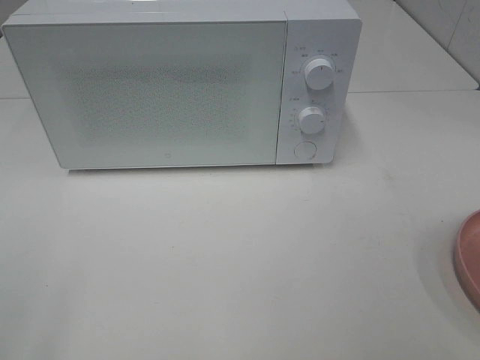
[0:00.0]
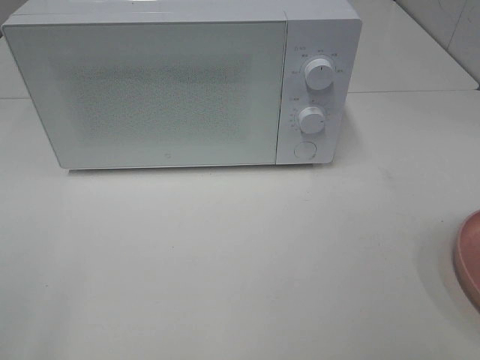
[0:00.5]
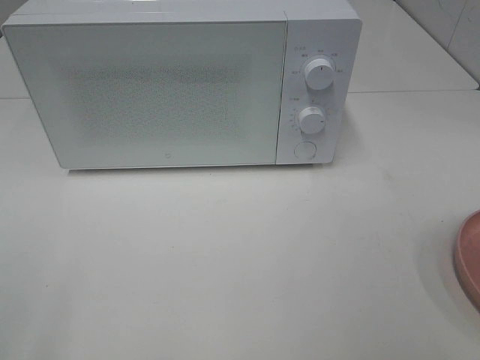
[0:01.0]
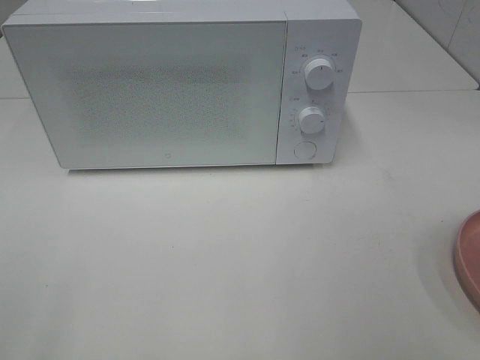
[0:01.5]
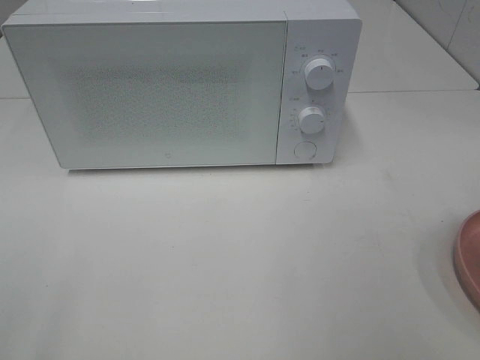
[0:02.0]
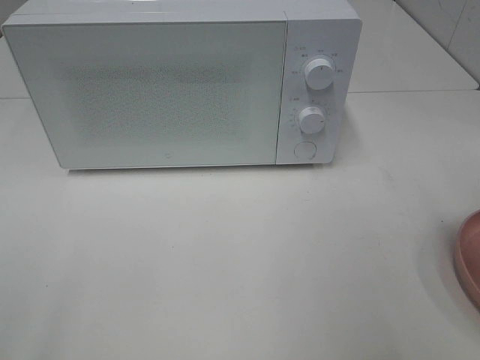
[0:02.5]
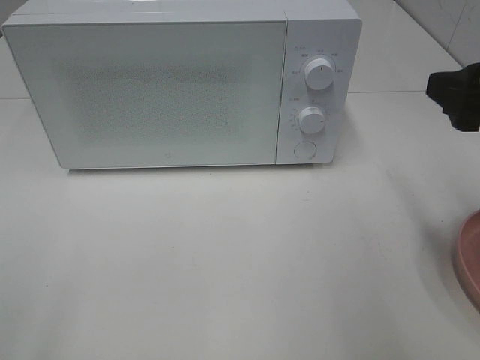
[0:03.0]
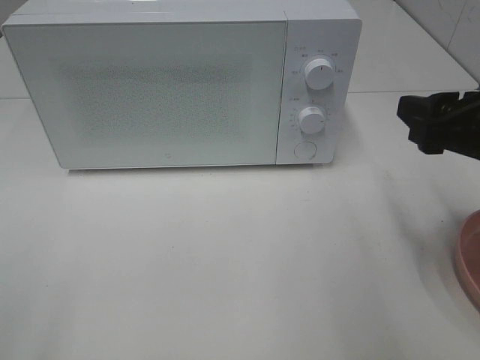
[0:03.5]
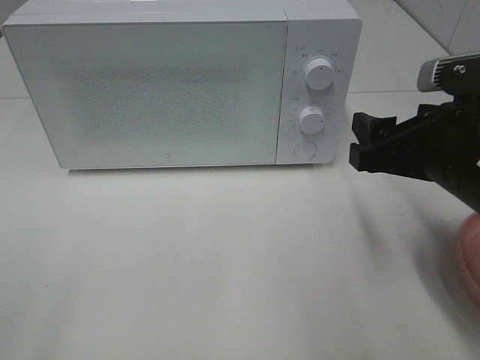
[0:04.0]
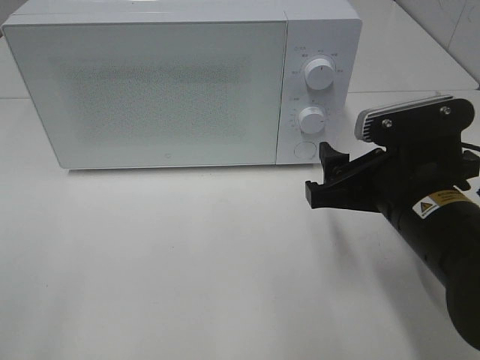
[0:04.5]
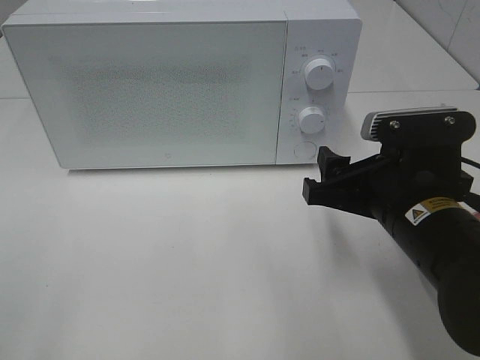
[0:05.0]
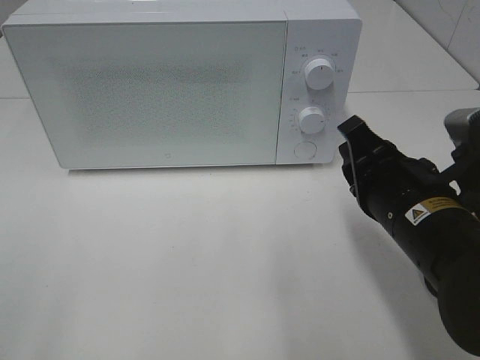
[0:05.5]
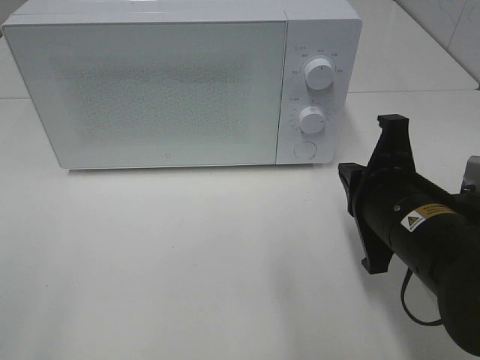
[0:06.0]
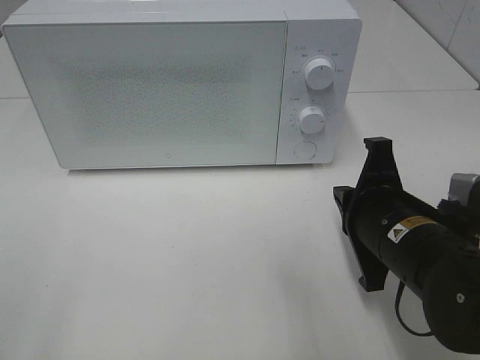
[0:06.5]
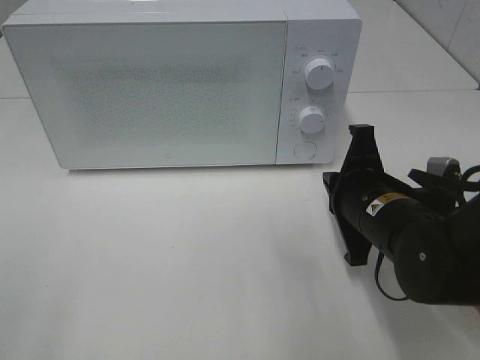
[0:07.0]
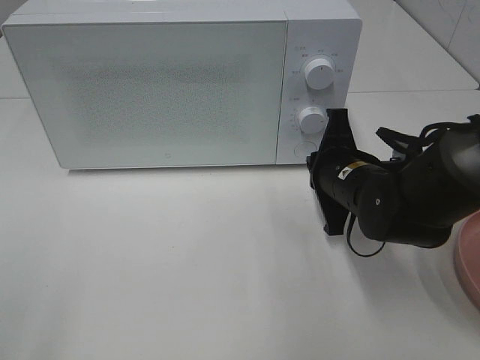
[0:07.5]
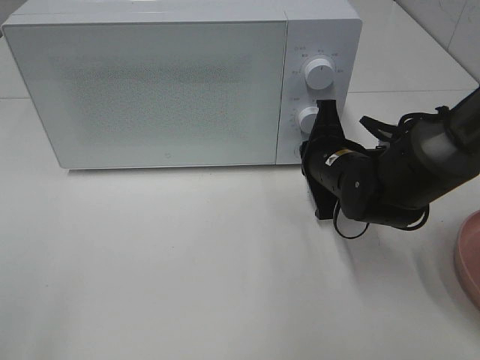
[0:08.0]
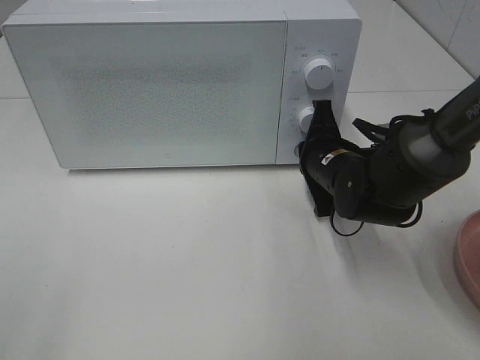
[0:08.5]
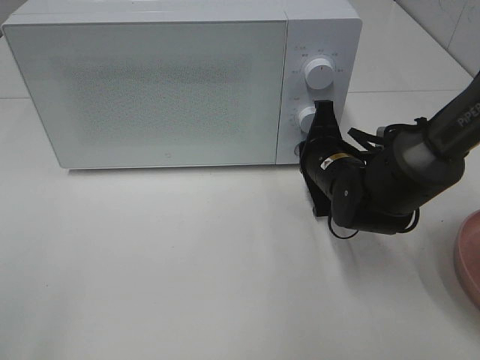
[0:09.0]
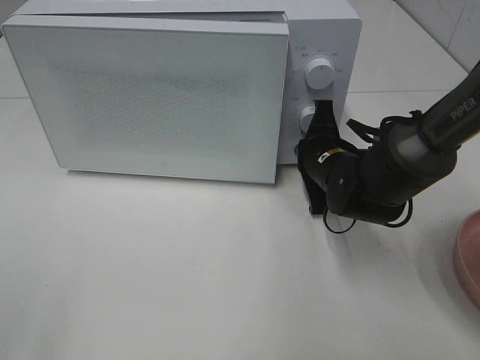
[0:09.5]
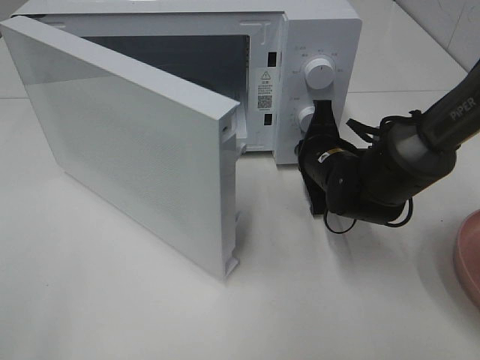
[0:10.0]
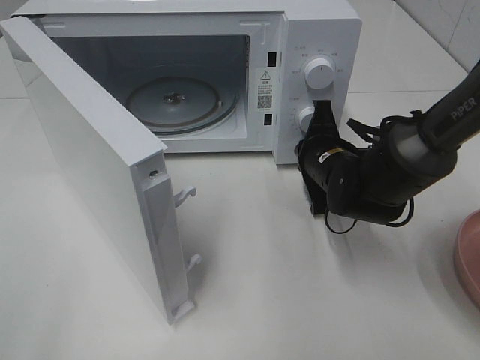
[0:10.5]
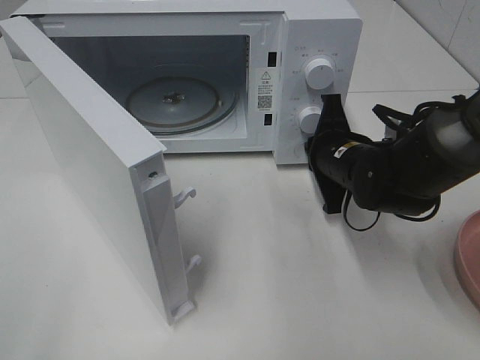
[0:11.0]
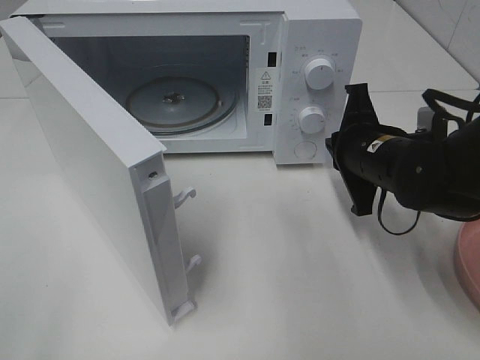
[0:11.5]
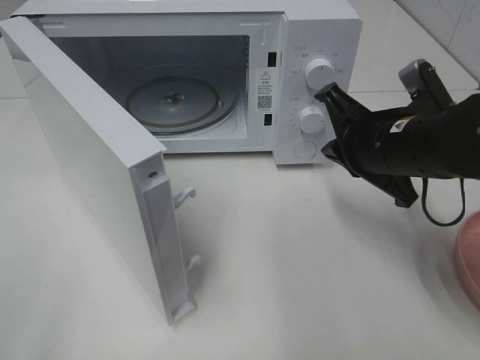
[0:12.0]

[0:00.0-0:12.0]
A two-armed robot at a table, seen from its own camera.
Task of the whole recording: Heat the burger.
Step, 0:00.0 to 0:11.0: Right hand: press the switch.
0:02.0 to 0:04.0: The right gripper goes approximately 20 cm downward, forward and to the left.
0:04.0 to 0:06.0: The right gripper goes approximately 5 cm downward, and closes.
0:06.0 to 0:08.0: The right gripper shifts approximately 15 cm forward and downward.
0:10.0 to 0:12.0: The right gripper is displaced upward and backward by some 10 cm.

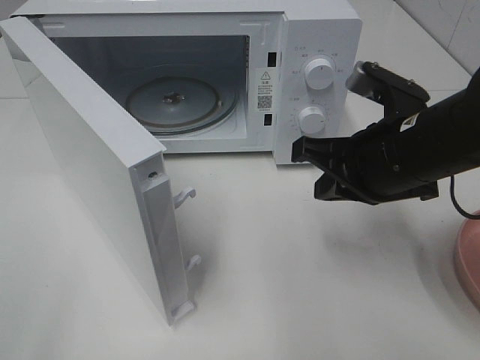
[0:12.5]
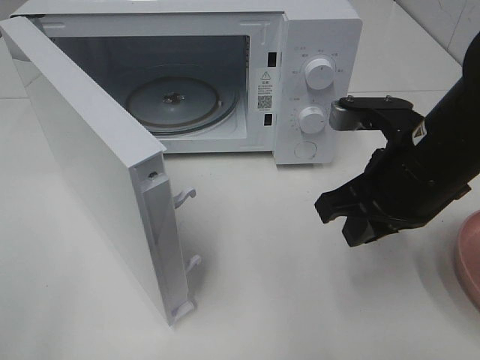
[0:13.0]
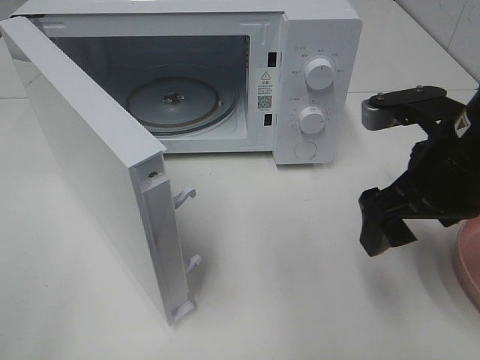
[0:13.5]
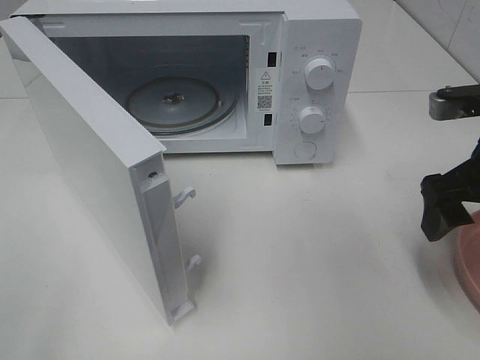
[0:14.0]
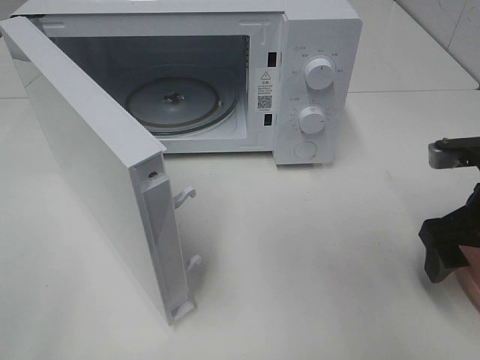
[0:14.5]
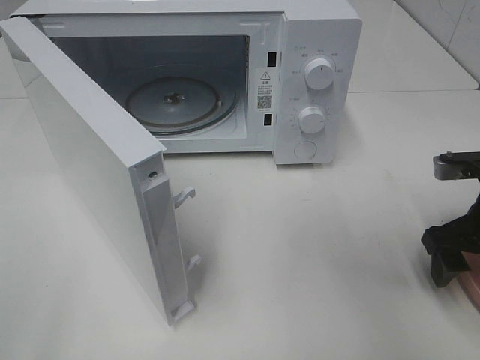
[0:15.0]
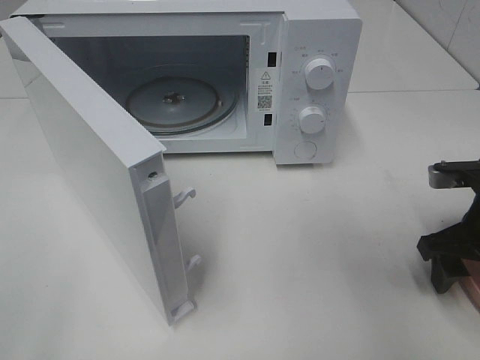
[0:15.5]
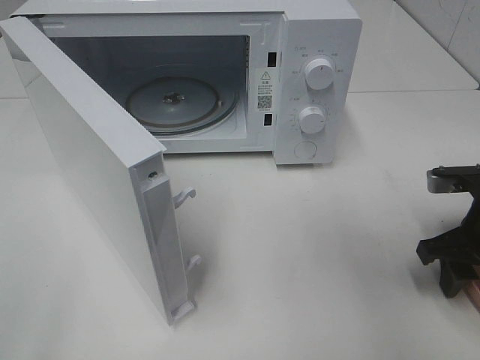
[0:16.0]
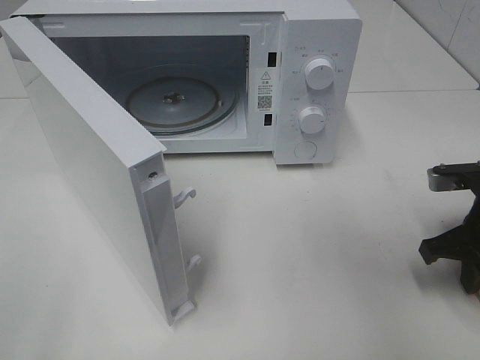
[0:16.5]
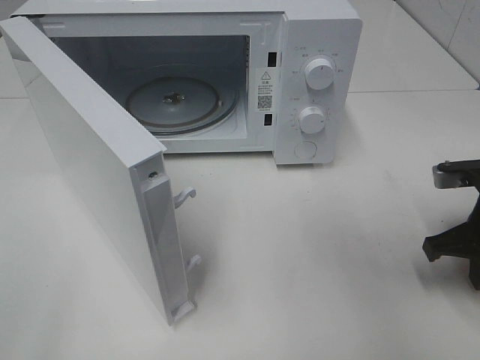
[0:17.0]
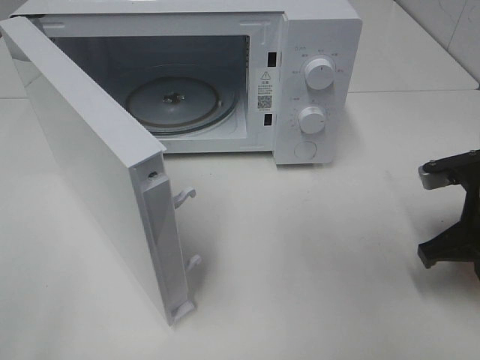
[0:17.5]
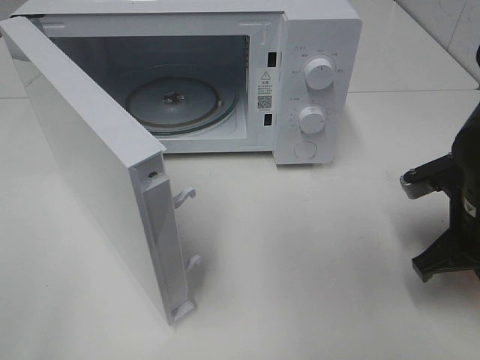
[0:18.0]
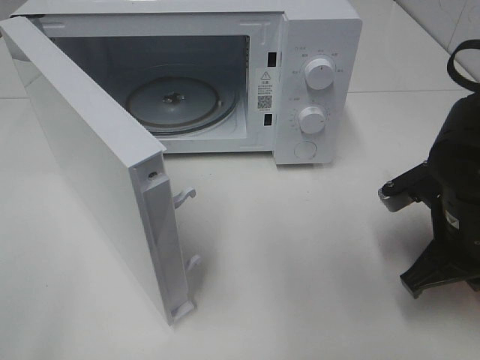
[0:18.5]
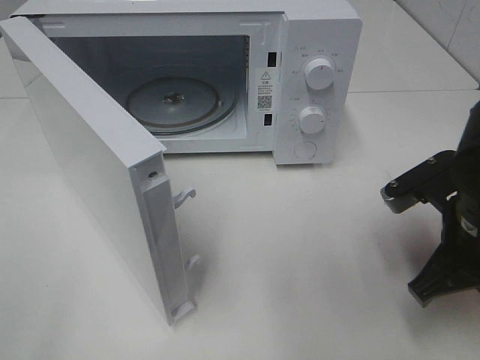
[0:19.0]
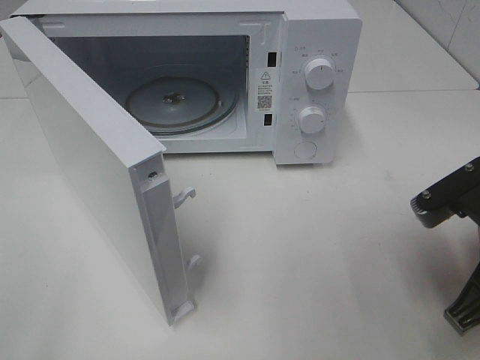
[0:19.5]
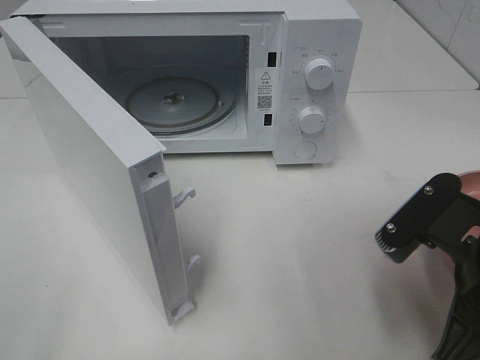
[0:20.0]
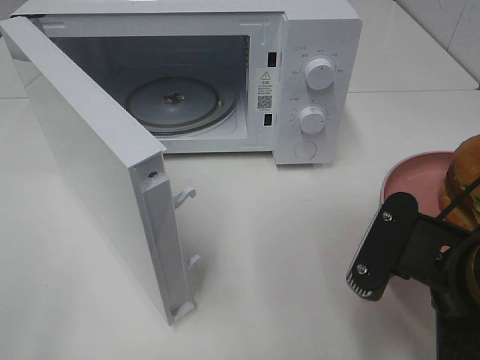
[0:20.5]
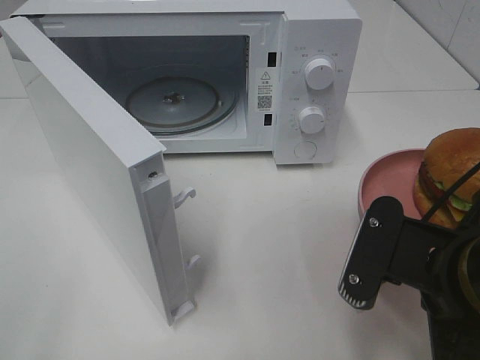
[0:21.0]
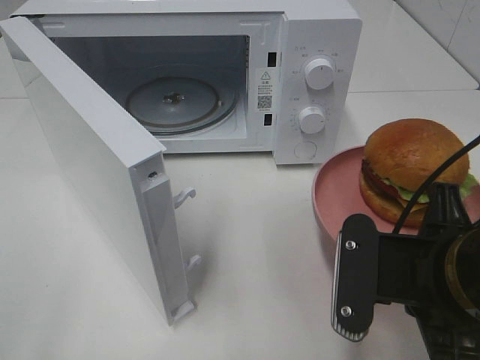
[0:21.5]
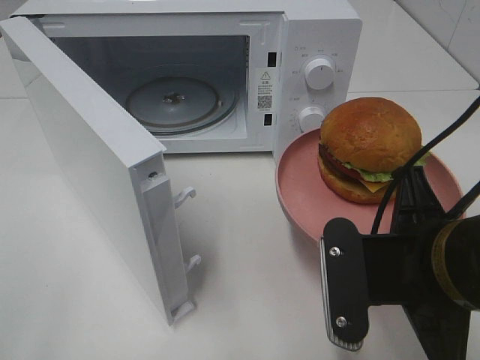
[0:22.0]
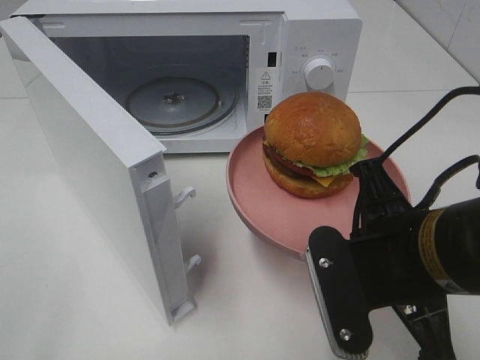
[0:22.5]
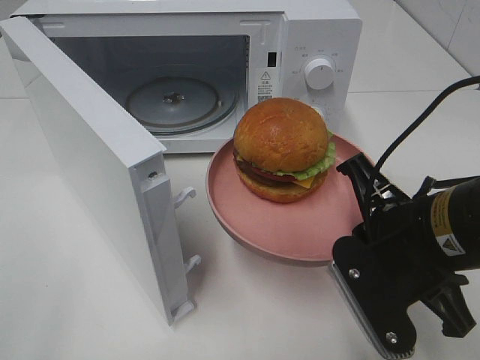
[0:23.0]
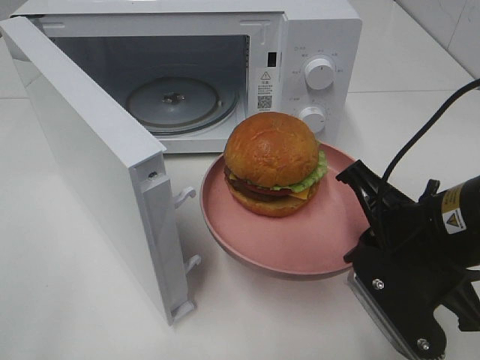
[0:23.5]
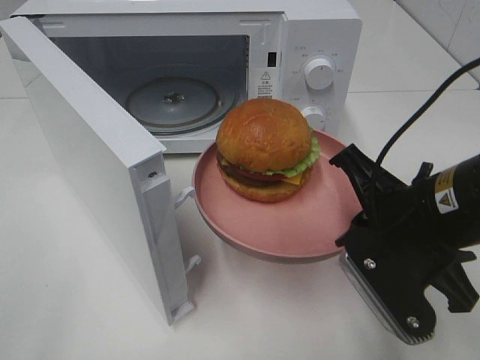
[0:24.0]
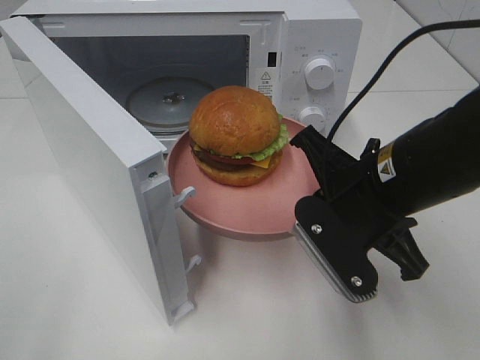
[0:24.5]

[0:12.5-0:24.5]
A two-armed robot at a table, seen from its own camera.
Task of the whole recording: Heat the burger.
Step, 0:12.5 to 0:16.5: Right hand: grab the plate with the hamburger.
0:12.5 to 0:14.5: The right gripper travels to the right by roughly 10 cm, and opens up.
0:14.5 to 0:16.5: The right gripper closes.
0:16.5 to 0:18.5: The right gripper heads to the left, covering approximately 5 cm.
0:18.5 to 0:20.5: The right gripper moves backward, about 10 cm.
0:22.5 to 0:24.5: The right gripper goes roughly 5 cm forward.

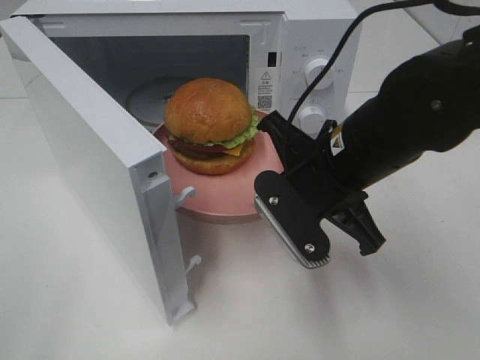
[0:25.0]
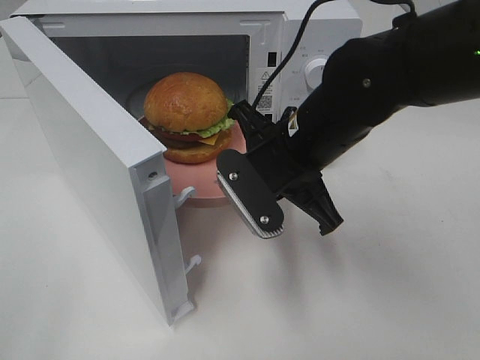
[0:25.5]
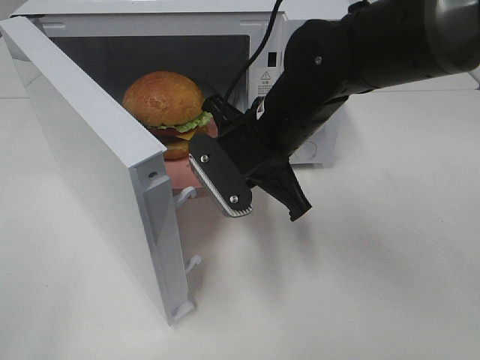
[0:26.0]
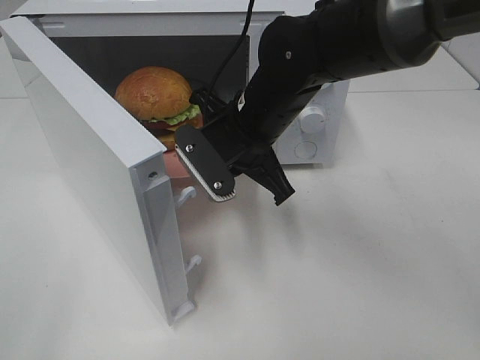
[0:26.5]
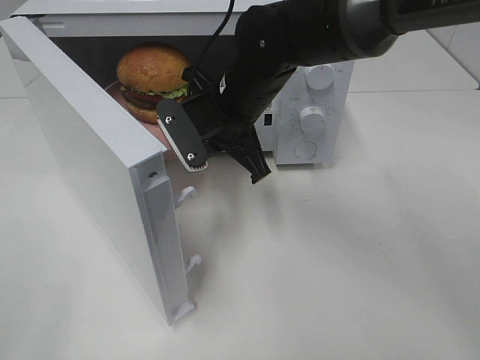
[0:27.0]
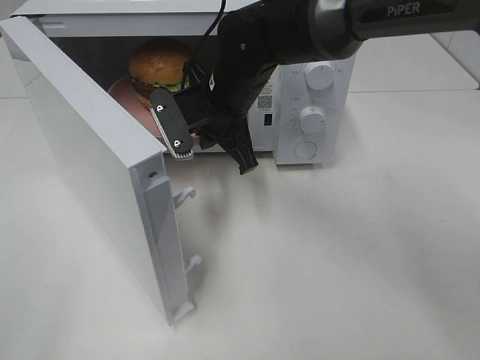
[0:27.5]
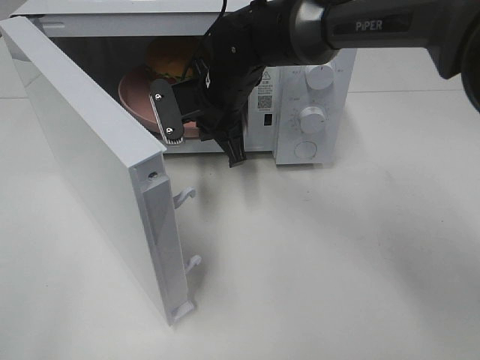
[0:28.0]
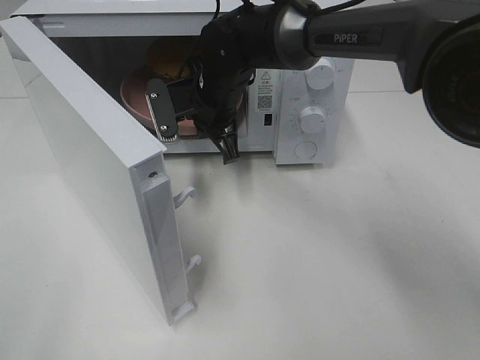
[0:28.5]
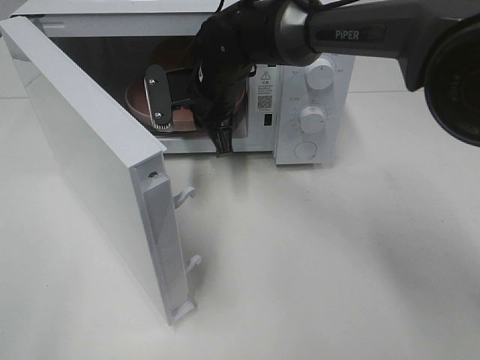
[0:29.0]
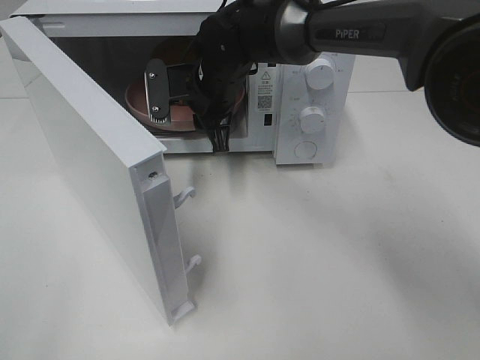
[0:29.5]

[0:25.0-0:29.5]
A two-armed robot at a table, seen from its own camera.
Task of the whole recording: Heat the burger.
Step, 0:25.0 to 0:28.5: Right hand: place the plate in the microwave.
0:25.0 to 0:27.0: The right gripper is displaced forward and to the left by roughly 15 cm.
0:27.0 to 0:29.5: The right gripper heads forward, covering about 5 cm, and opens its fingers.
